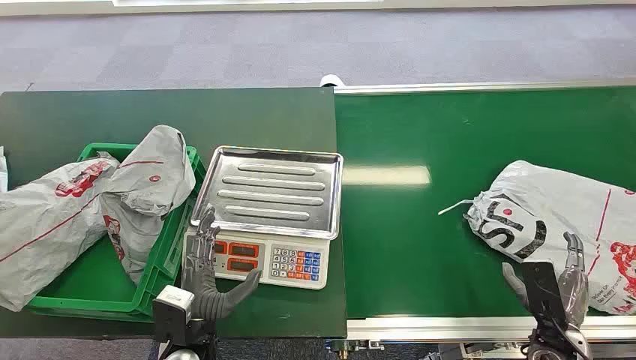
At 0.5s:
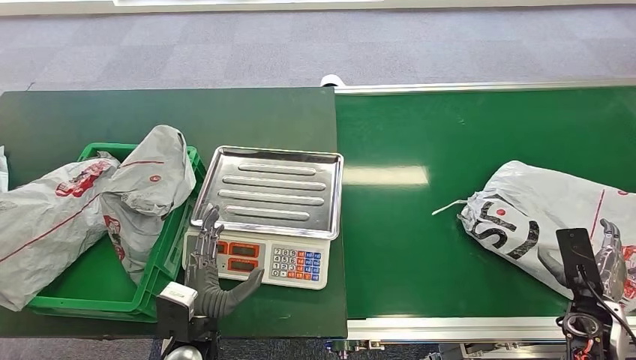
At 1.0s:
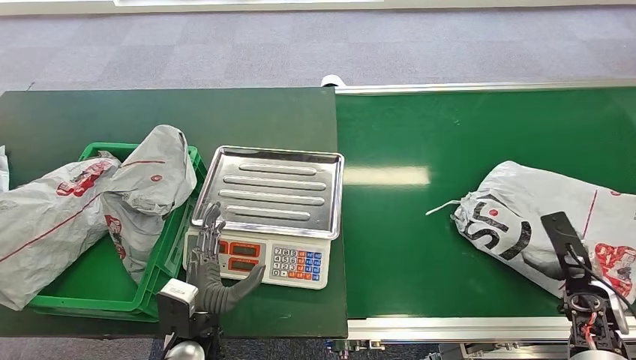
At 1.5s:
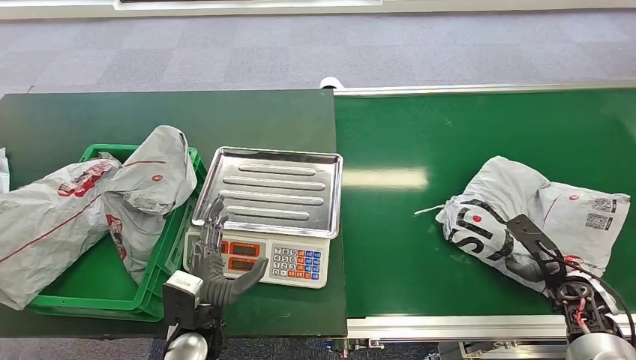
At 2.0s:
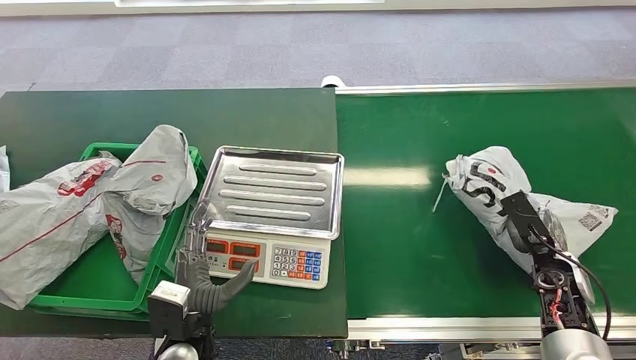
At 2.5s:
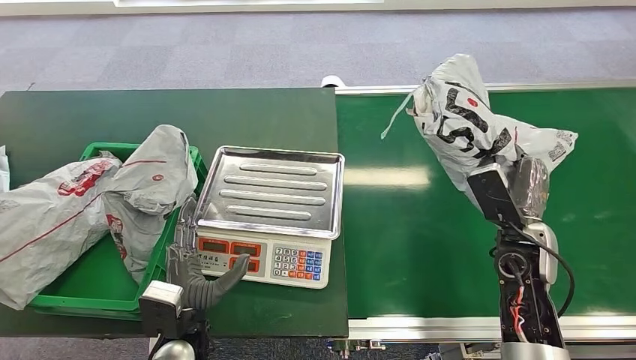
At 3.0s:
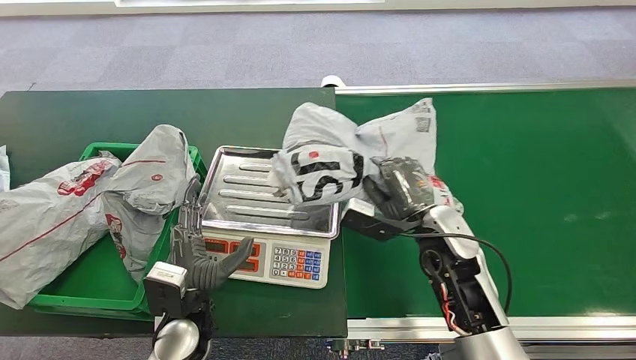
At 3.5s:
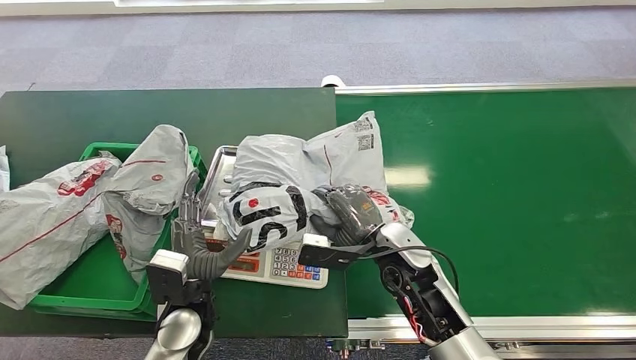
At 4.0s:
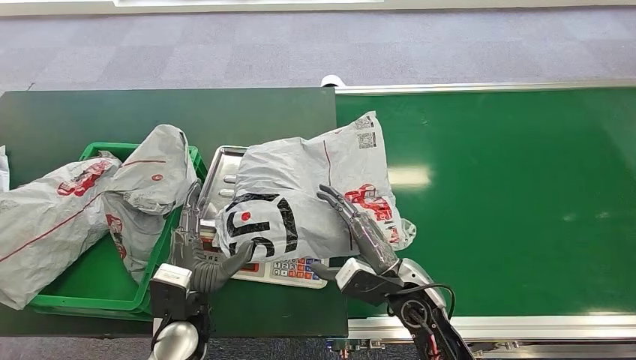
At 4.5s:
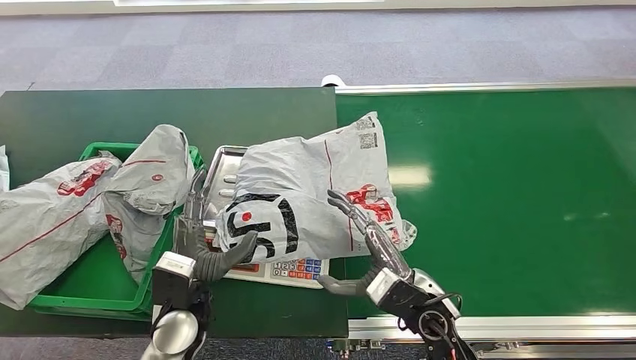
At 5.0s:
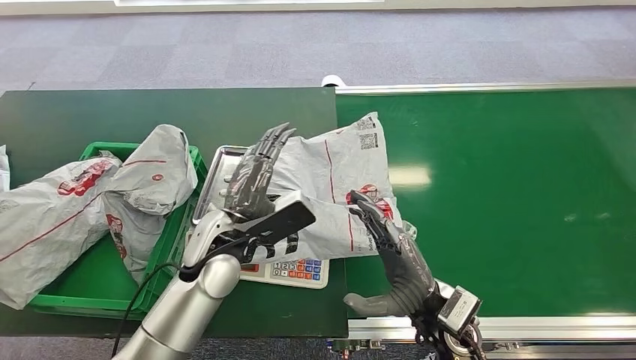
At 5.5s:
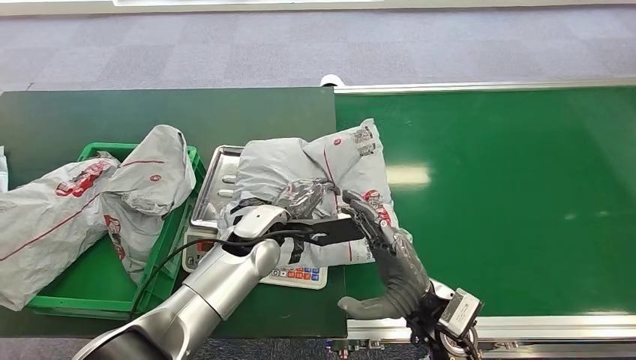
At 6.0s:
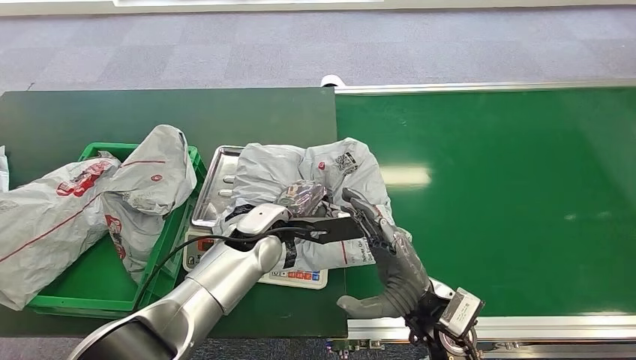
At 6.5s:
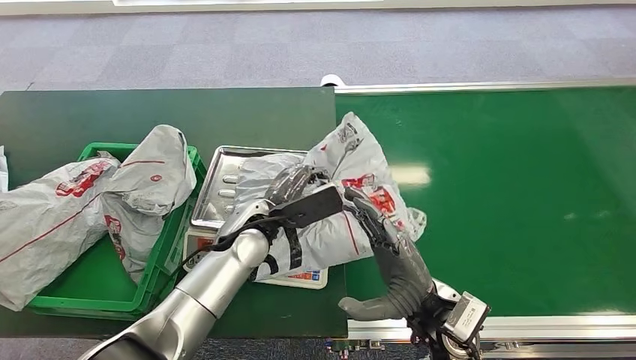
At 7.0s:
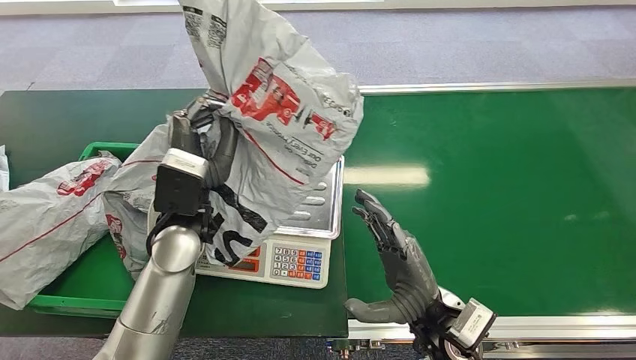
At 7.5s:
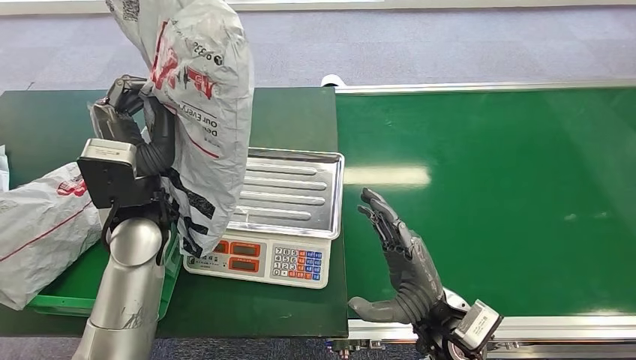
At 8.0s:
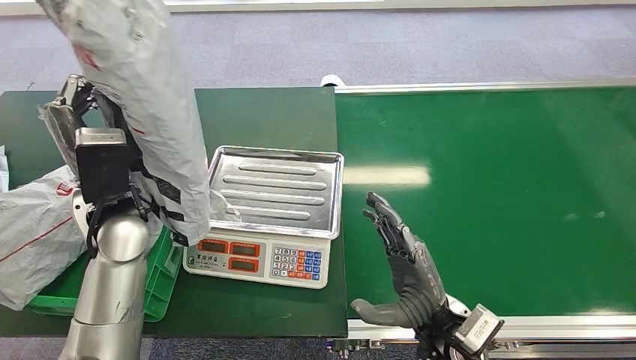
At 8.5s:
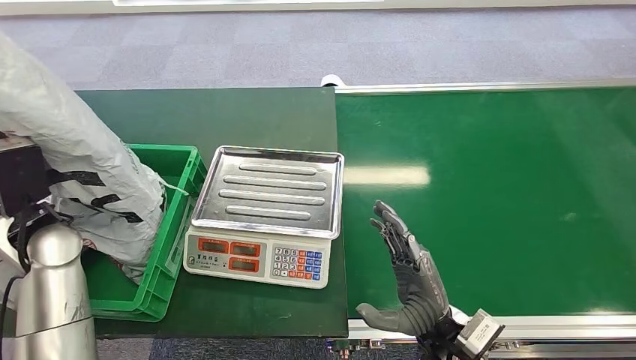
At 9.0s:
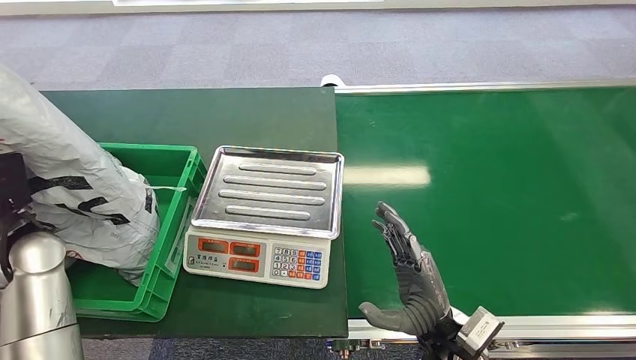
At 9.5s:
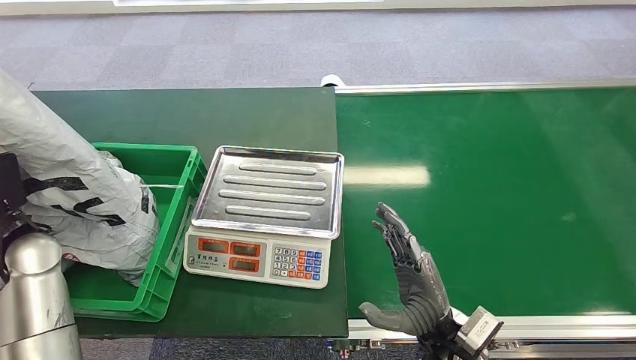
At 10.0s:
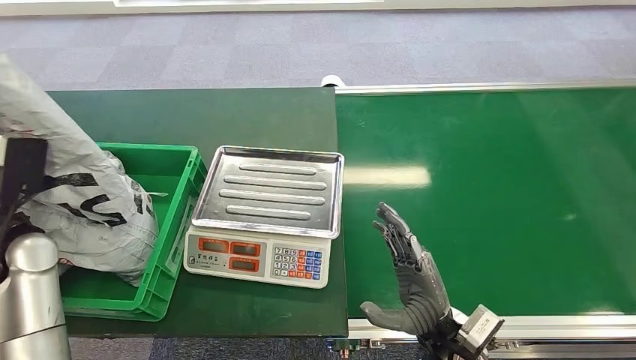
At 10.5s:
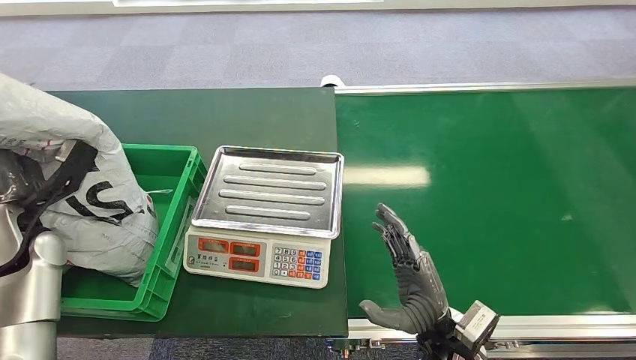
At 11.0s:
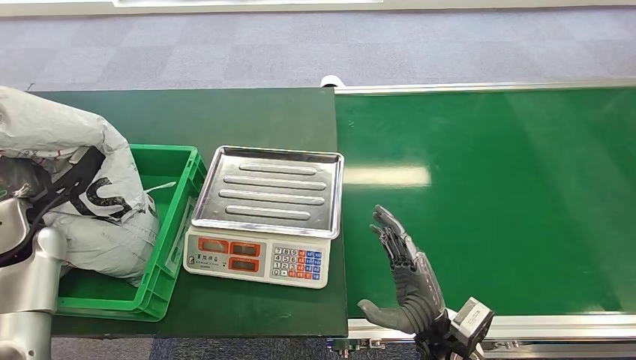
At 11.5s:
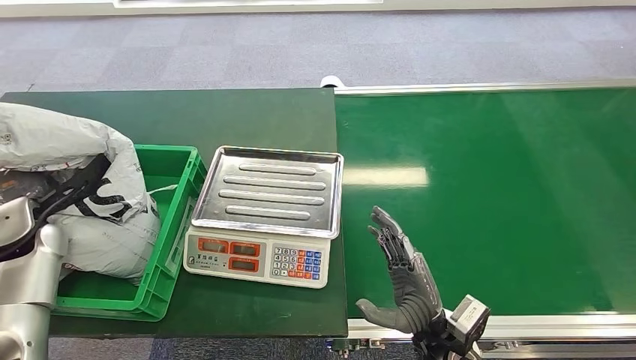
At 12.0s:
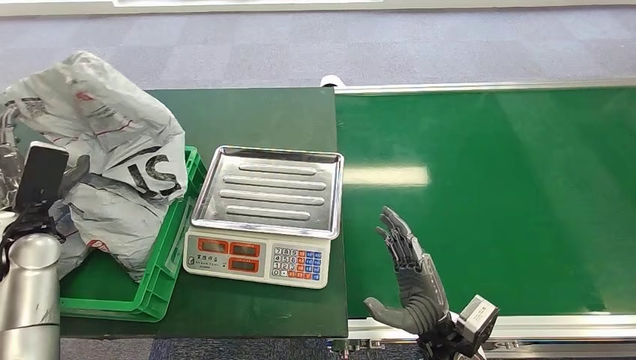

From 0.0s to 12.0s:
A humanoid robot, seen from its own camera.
Task of the whole recording: Weigh the package on the weighing device and place it in the left basket.
Step, from 0.0s to 3.0s: Pick up the package from the conveyor belt.
Step, from 3.5s to 4.5s: Place the package onto the inbound machine.
Step, from 5.0s to 6.5s: Pick up the package from the inbound machine.
Step, from 7.0s to 12.0s: Place the package into the parcel locker.
From 4.0s to 6.0s: The right hand shifts by some 5 cm, while the left hand travels forward, to the right and upward by roughly 20 cm.
